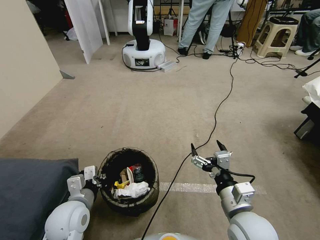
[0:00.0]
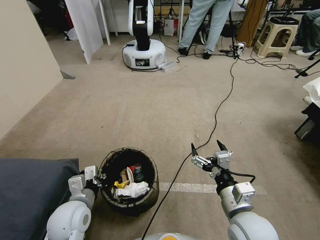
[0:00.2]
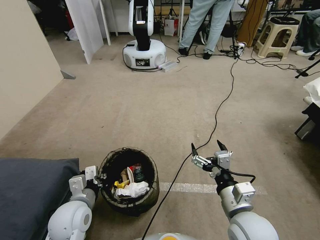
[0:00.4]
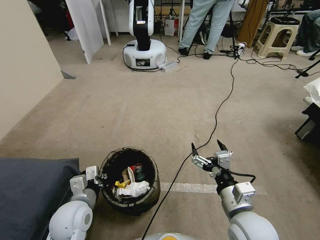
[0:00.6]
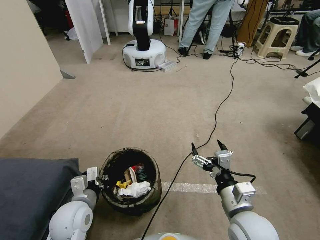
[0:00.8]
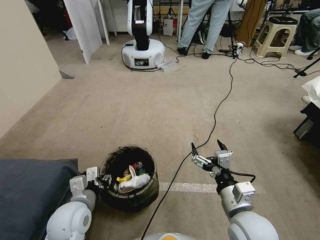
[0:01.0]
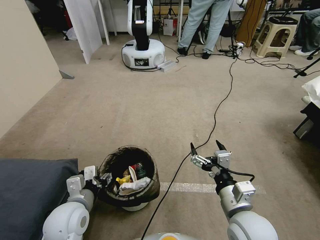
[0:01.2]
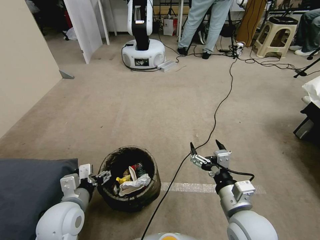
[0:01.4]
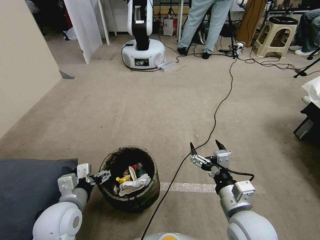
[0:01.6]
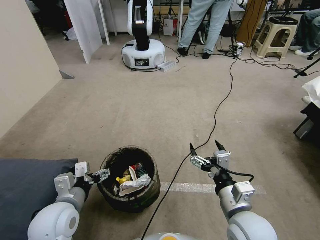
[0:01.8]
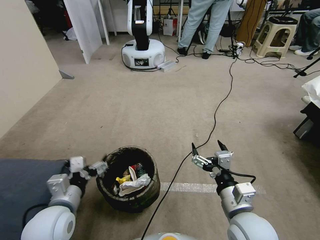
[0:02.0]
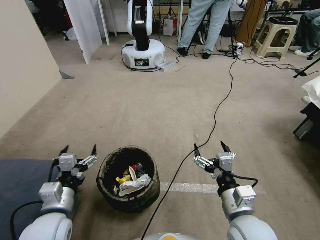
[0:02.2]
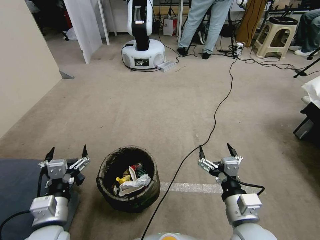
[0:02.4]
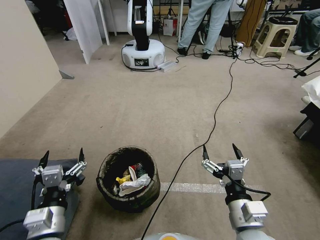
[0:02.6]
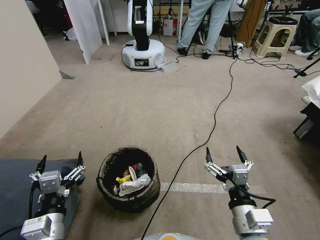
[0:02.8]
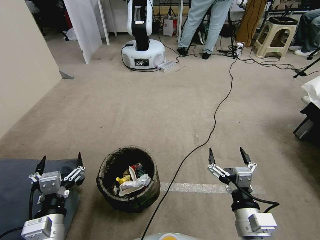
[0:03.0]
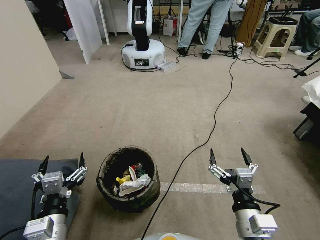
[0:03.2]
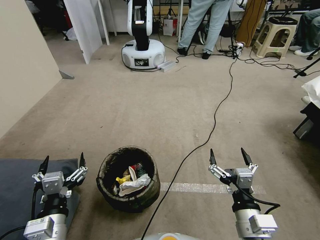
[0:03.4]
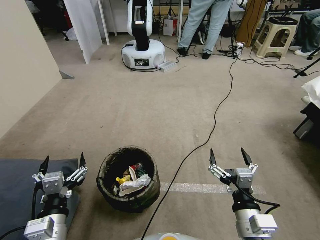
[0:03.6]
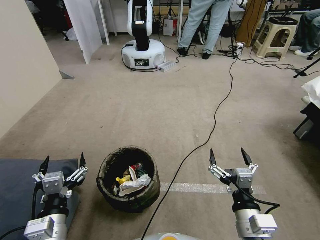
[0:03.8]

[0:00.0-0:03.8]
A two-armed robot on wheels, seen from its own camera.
Task of the whole recording: Pick up the trash bin, then pick up the garbage from the floor and place it into the trash bin.
0:00.0 to 0:01.2: The left gripper opens its fingers.
0:01.2 to 0:02.6: The left gripper heads backward, covering approximately 10 cm, and opens up.
0:02.6 to 0:03.8: The grippers make only small movements.

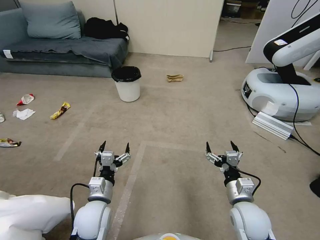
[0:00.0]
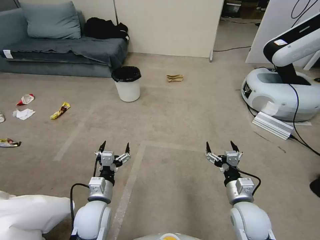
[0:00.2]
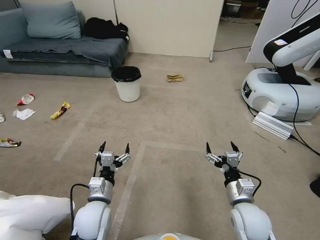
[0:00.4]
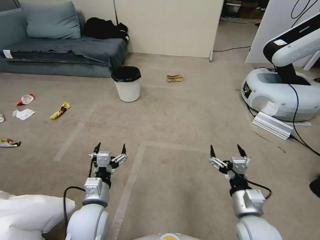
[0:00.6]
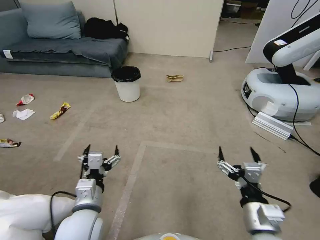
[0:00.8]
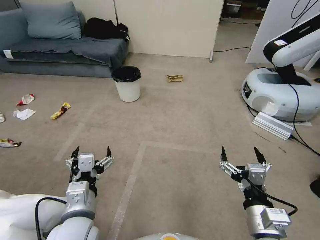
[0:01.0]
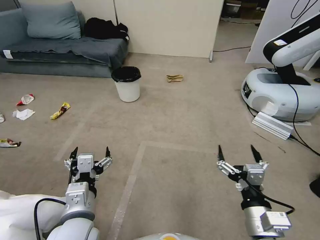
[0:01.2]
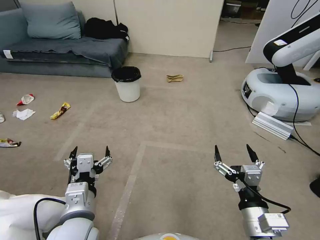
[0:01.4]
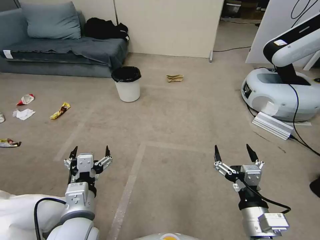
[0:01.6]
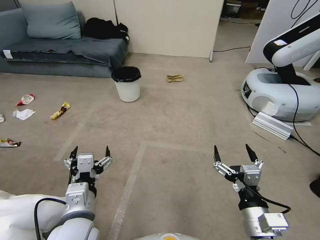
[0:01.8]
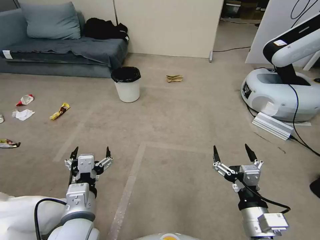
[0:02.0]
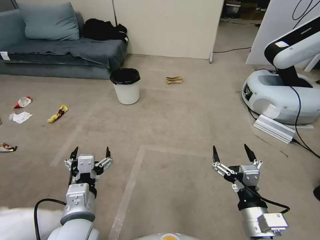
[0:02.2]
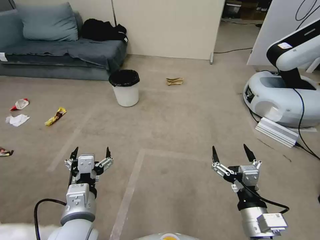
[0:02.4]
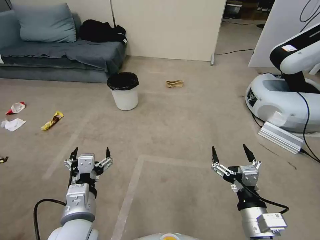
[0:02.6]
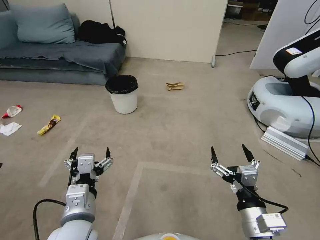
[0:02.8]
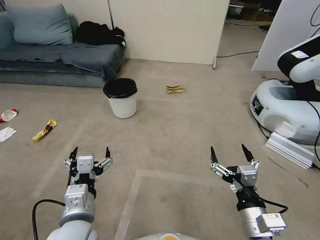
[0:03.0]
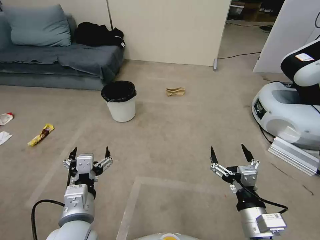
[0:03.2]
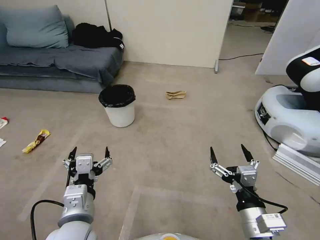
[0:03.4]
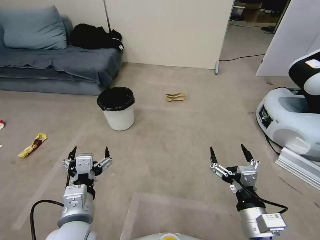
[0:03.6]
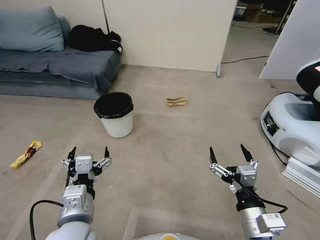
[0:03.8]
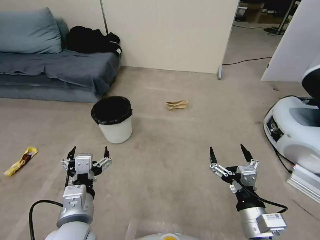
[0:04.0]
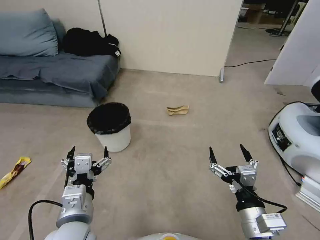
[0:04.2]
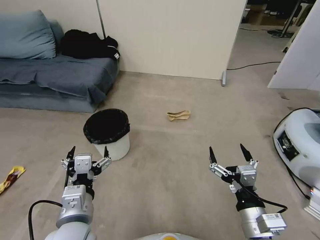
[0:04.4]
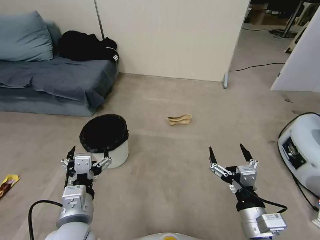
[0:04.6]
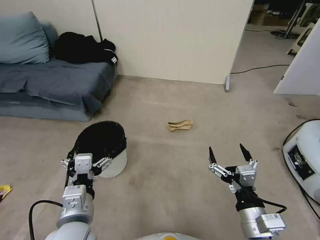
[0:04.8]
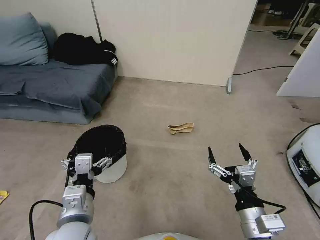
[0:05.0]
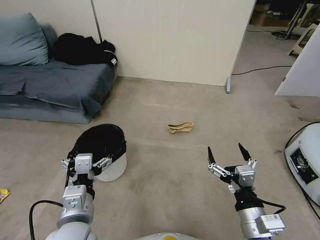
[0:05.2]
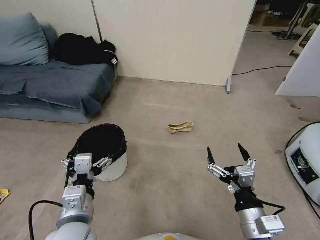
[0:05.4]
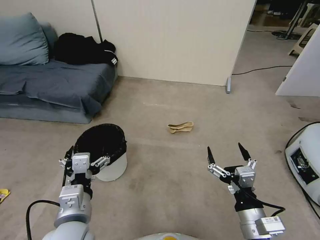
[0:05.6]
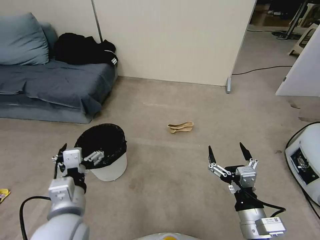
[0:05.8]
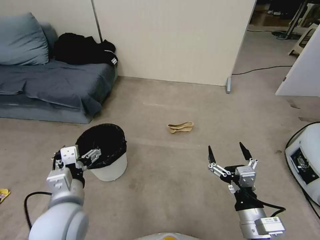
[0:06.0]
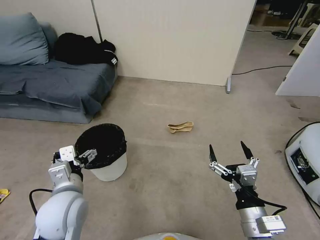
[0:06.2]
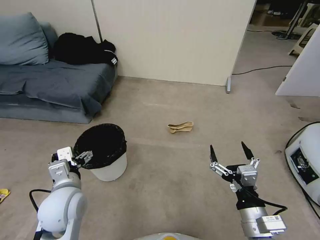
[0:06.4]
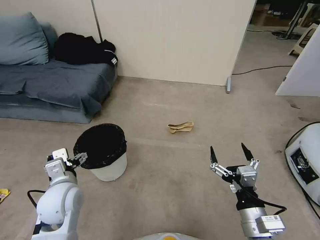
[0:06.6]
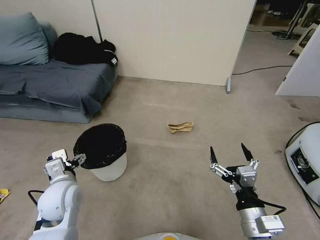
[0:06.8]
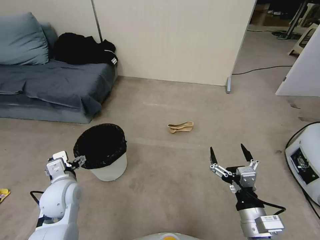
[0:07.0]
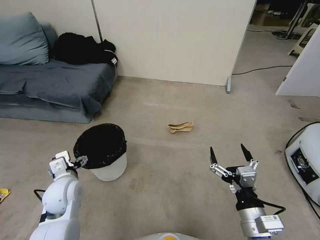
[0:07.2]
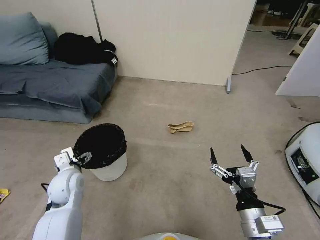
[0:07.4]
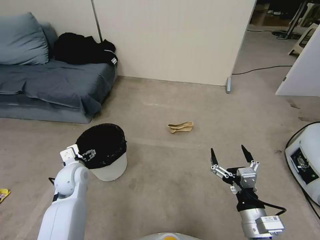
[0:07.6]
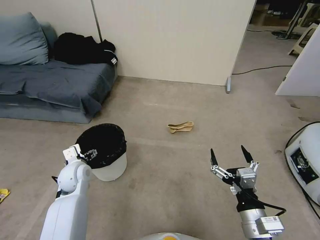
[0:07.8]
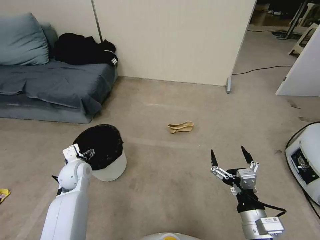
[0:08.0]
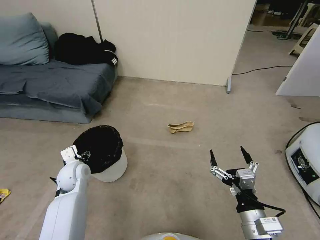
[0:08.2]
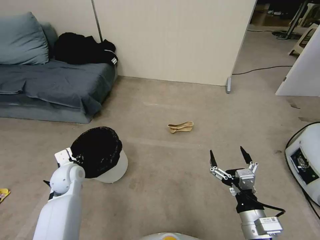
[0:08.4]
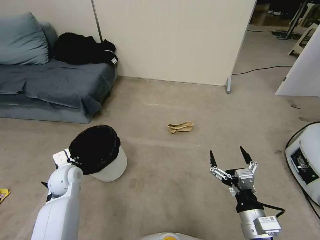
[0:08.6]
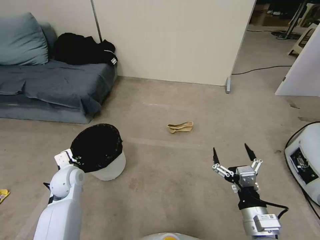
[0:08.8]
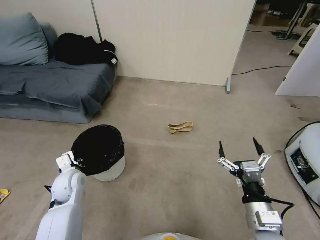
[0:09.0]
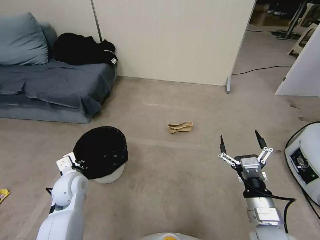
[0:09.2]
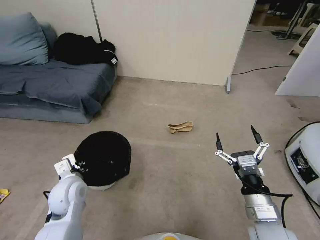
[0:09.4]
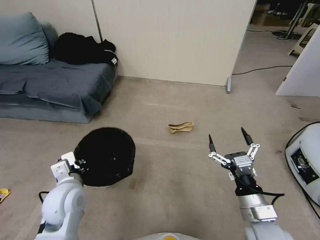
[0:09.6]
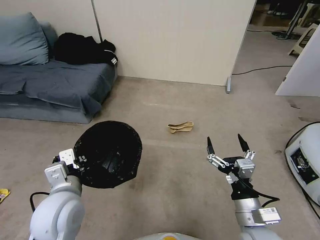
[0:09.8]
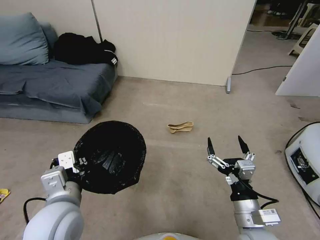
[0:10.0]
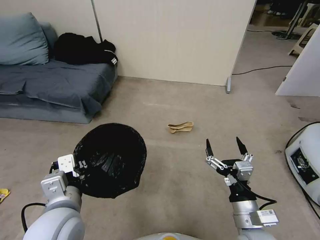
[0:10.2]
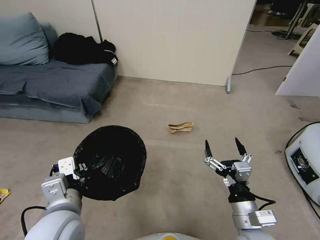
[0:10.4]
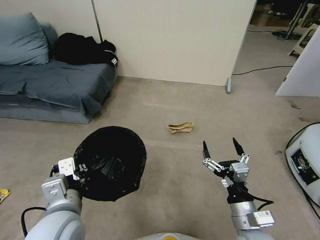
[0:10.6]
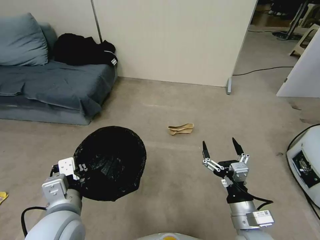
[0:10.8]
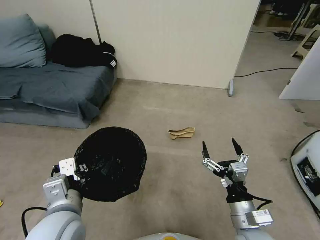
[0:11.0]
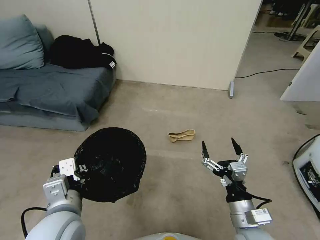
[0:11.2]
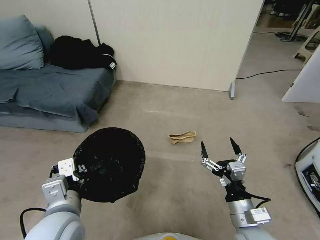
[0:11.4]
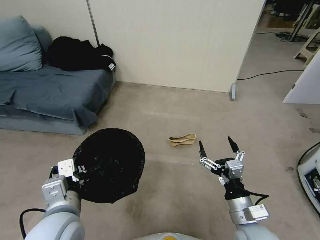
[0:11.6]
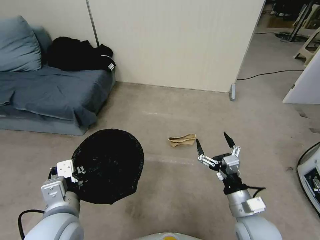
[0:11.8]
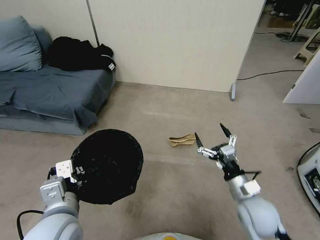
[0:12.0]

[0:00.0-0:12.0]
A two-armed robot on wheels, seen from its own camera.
Task of the whole recording: Pick up the trash bin, then pick up the garbage from the floor and place it into the trash bin.
0:06.0 to 0:07.6: The left gripper heads forward, downward and to the left, covering approximately 20 cm.
0:07.6 to 0:09.0: The left gripper closes its fingers.
0:09.0 to 0:10.4: The left gripper shifts approximately 20 cm backward, upward and to the right.
0:10.4 to 0:12.0: The right gripper is displaced forward by roughly 10 cm.

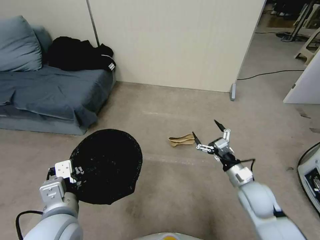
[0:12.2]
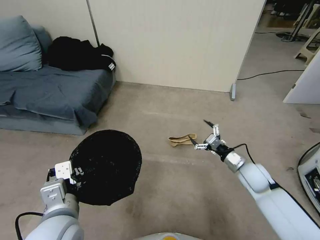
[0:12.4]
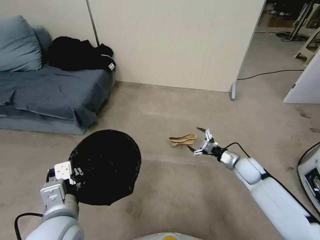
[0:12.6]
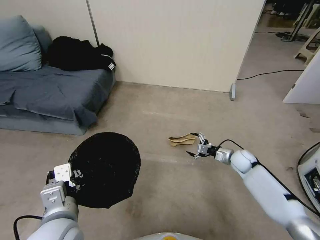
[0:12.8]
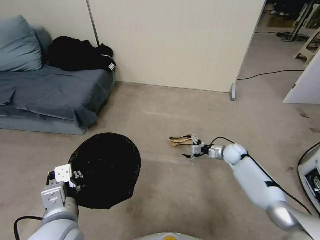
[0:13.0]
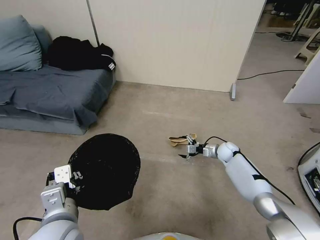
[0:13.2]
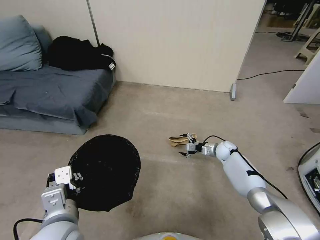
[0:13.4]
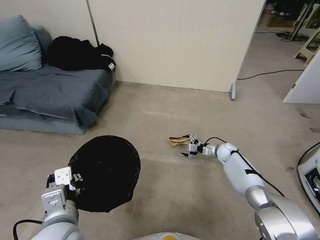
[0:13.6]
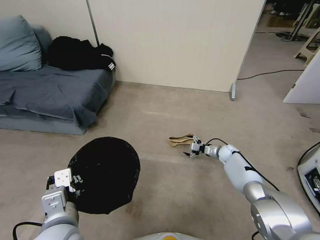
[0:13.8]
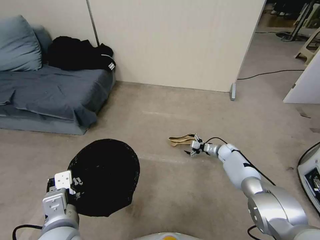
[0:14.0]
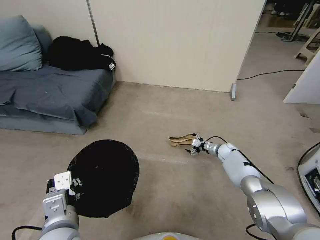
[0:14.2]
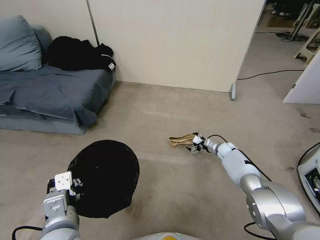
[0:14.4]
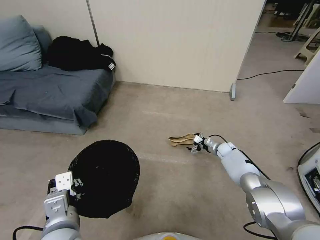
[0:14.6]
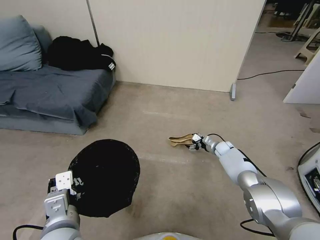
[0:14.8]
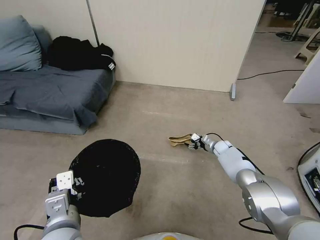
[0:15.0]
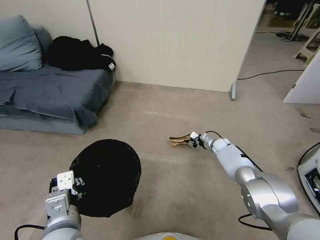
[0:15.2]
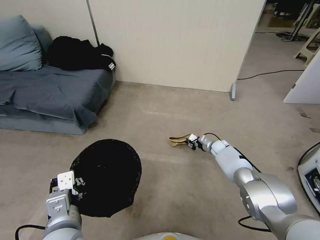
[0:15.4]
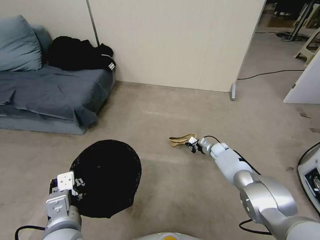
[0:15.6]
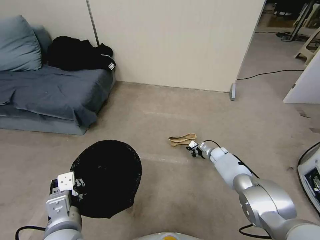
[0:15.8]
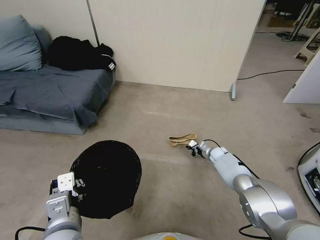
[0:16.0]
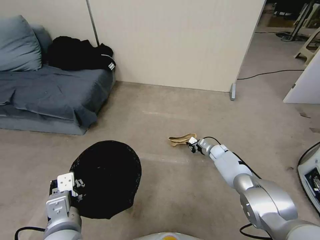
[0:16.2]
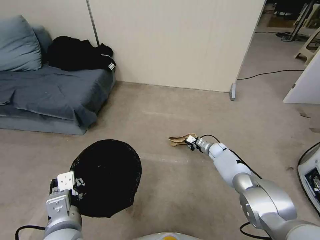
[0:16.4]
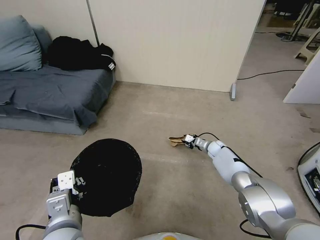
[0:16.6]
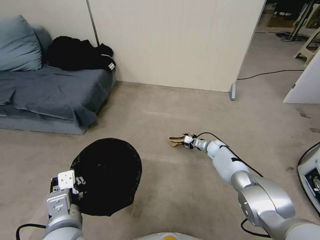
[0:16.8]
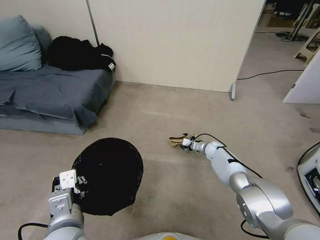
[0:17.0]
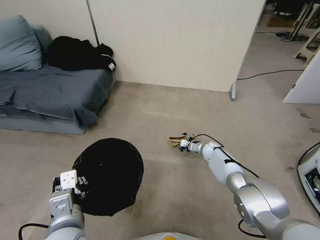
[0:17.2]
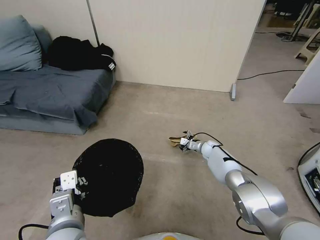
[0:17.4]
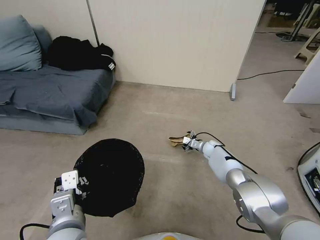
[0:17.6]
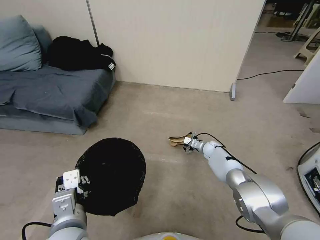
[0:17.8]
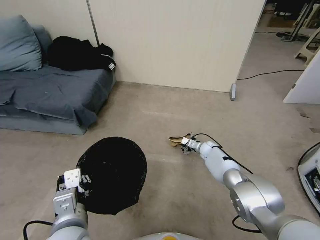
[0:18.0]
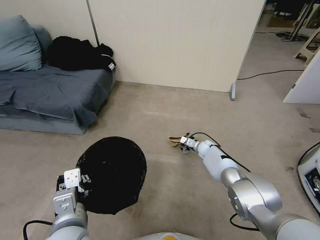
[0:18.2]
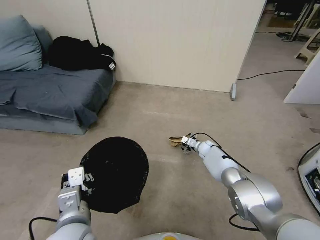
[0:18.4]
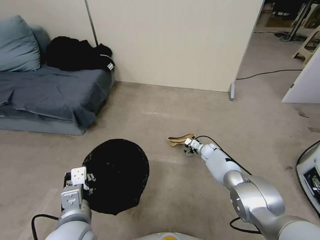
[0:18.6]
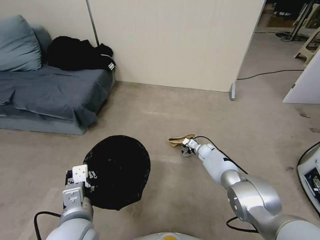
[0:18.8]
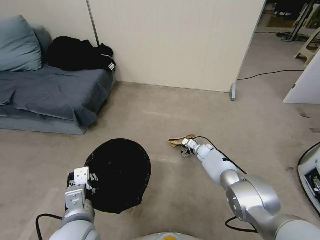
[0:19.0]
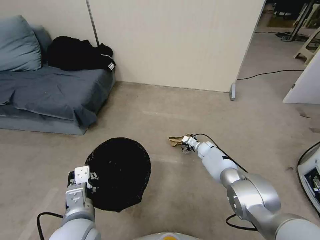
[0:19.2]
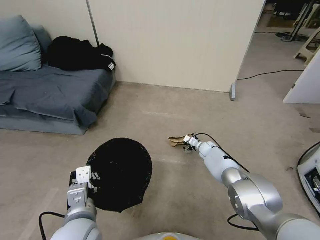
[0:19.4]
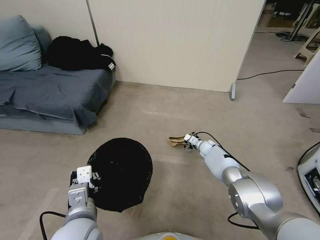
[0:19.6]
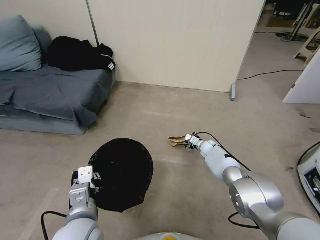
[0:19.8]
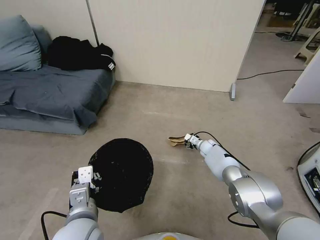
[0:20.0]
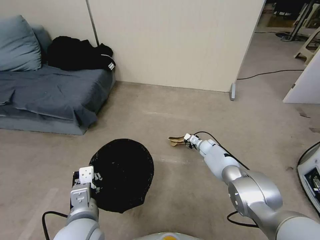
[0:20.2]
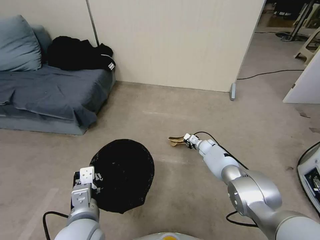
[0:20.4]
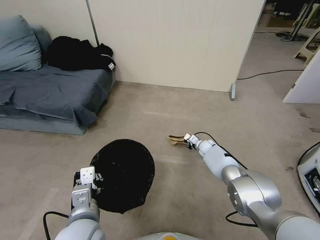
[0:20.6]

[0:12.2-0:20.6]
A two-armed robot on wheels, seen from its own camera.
Task of the whole recording: Pick up the trash bin, then pick up the garbage from the floor and place it into the trash bin.
0:12.2 to 0:13.6: The right gripper moves forward and downward, roughly 25 cm.
0:15.0 to 0:16.4: The right gripper closes.
0:16.4 to 0:17.8: The right gripper opens.
0:17.8 to 0:19.2: The grippers make only small movements.
0:19.2 to 0:20.6: The right gripper closes up.